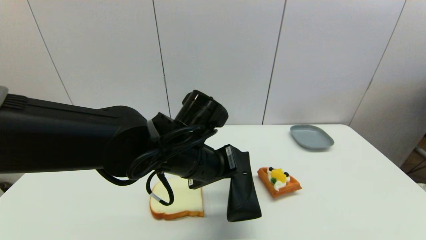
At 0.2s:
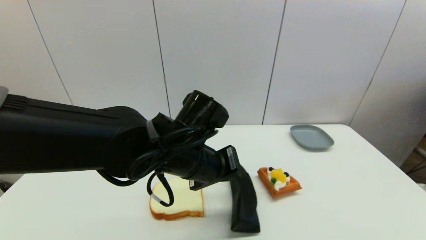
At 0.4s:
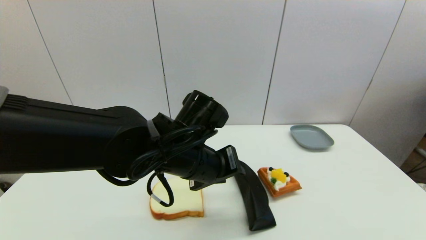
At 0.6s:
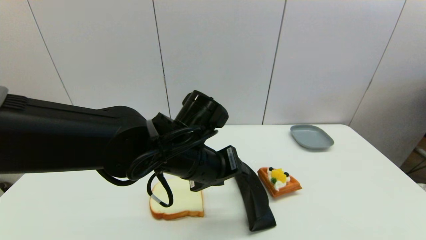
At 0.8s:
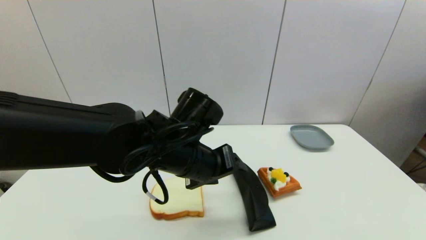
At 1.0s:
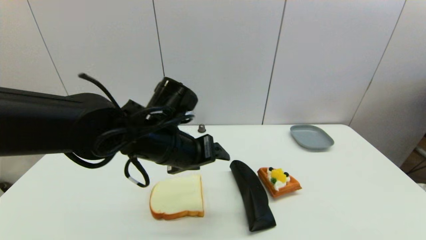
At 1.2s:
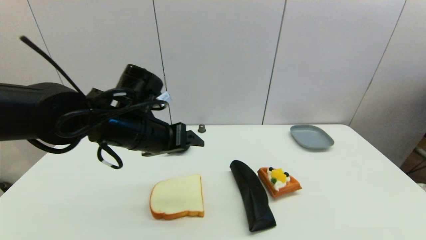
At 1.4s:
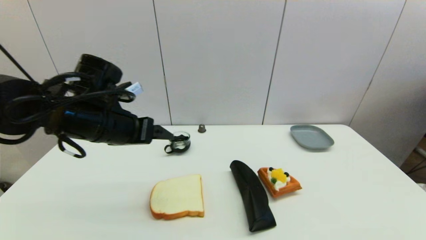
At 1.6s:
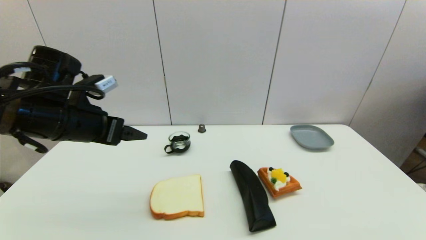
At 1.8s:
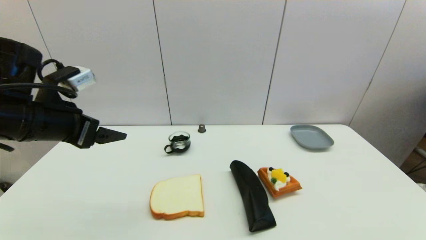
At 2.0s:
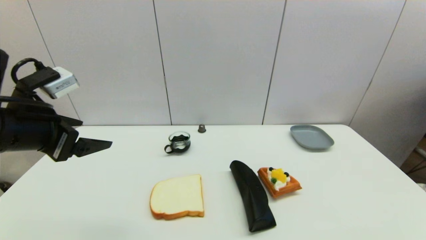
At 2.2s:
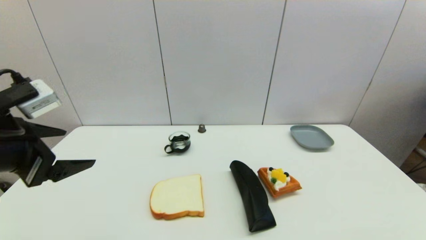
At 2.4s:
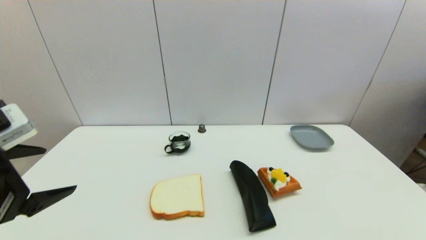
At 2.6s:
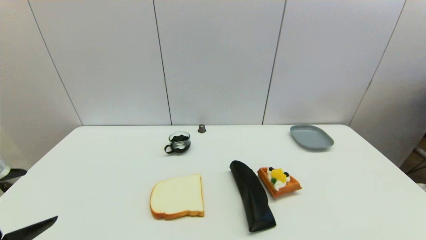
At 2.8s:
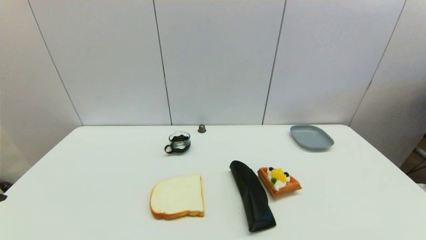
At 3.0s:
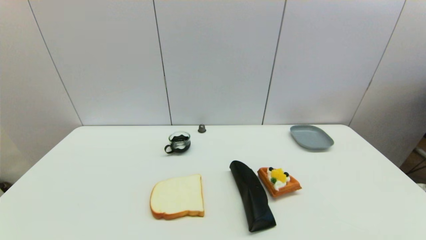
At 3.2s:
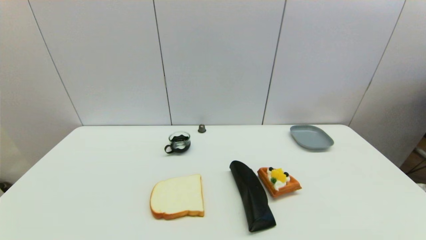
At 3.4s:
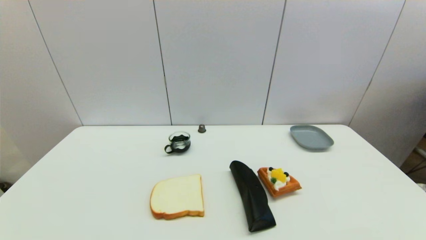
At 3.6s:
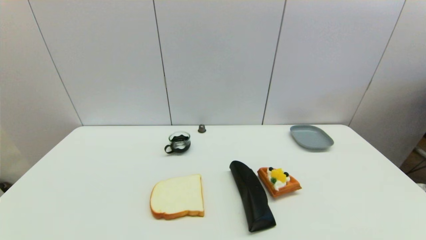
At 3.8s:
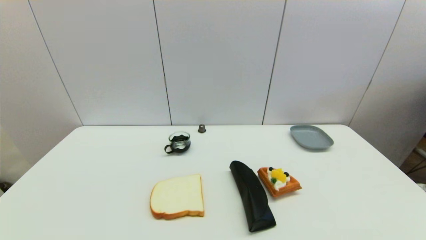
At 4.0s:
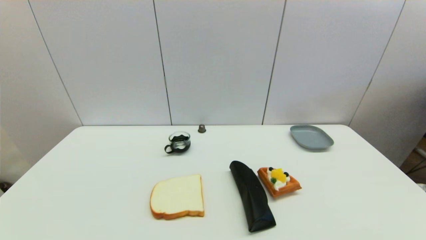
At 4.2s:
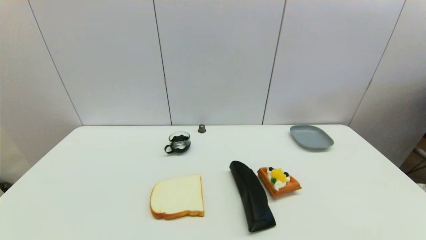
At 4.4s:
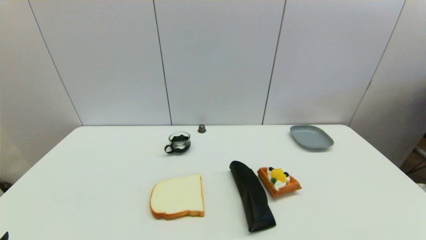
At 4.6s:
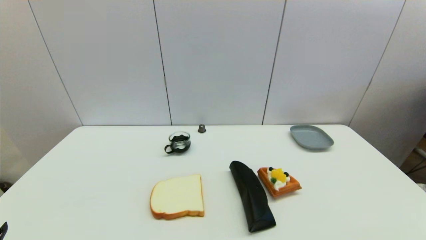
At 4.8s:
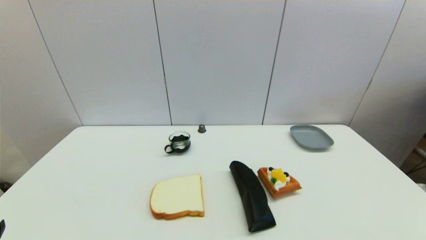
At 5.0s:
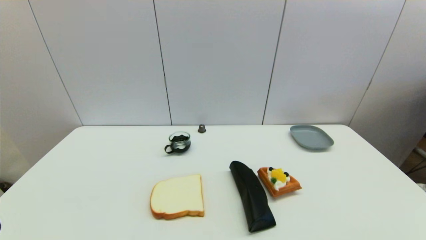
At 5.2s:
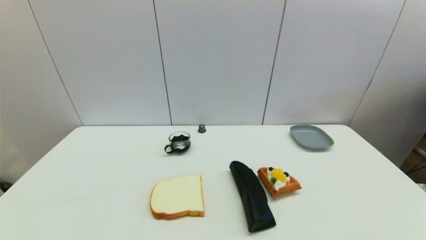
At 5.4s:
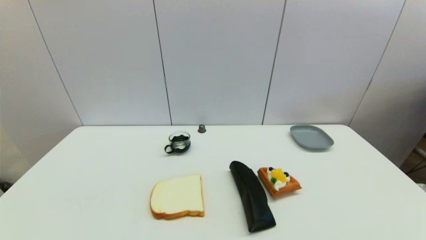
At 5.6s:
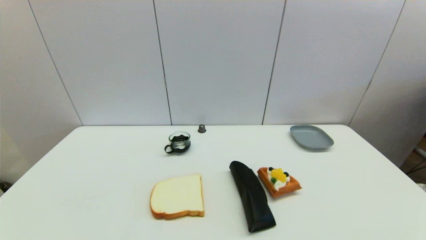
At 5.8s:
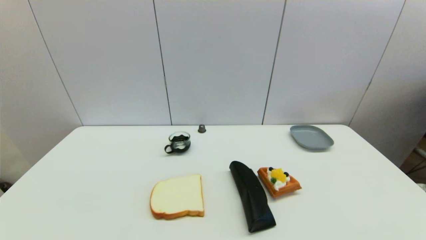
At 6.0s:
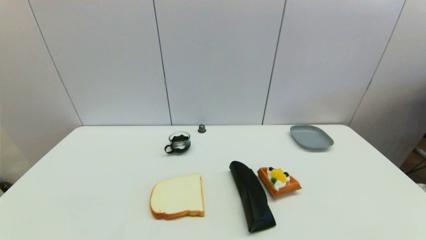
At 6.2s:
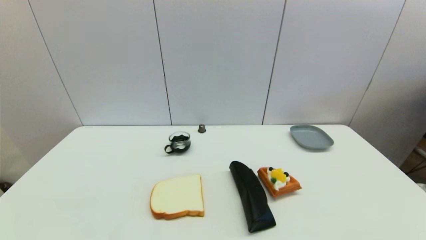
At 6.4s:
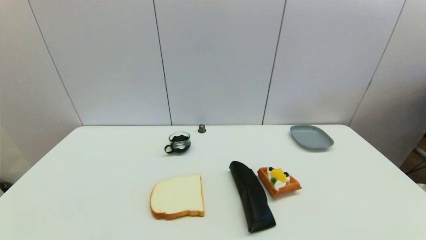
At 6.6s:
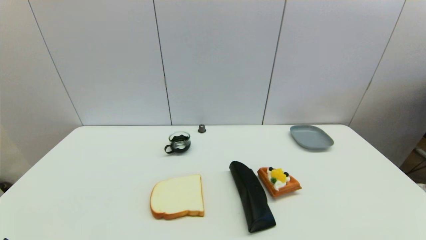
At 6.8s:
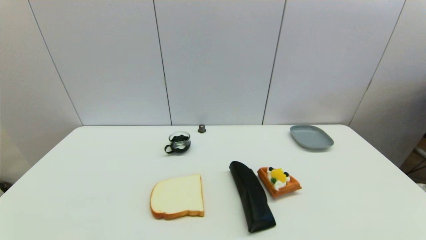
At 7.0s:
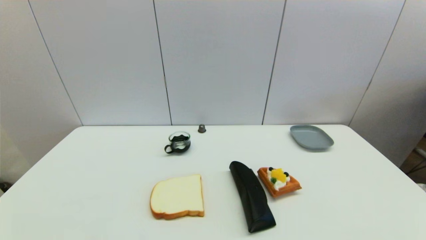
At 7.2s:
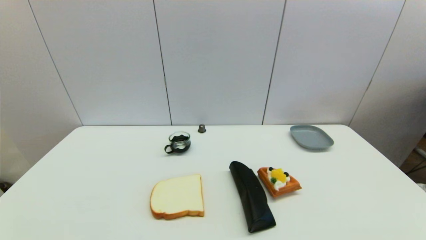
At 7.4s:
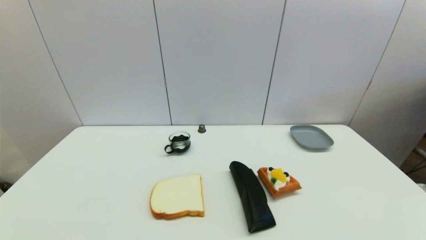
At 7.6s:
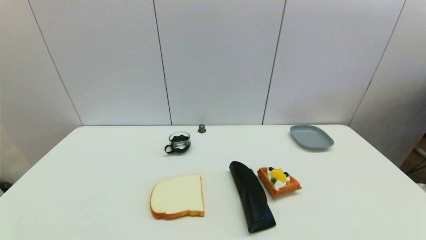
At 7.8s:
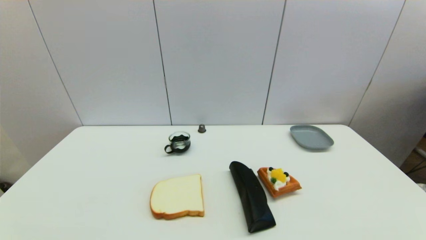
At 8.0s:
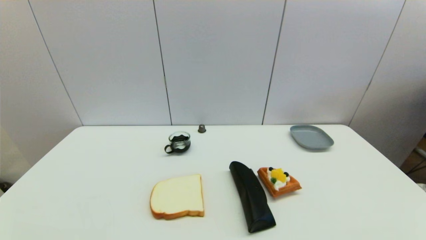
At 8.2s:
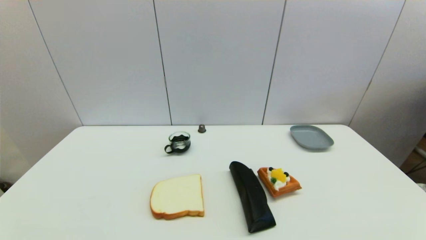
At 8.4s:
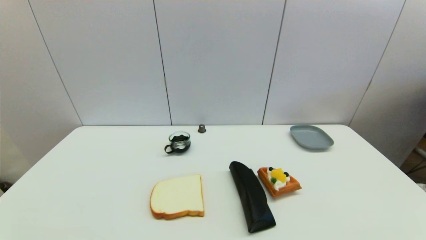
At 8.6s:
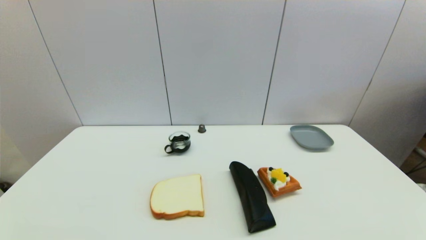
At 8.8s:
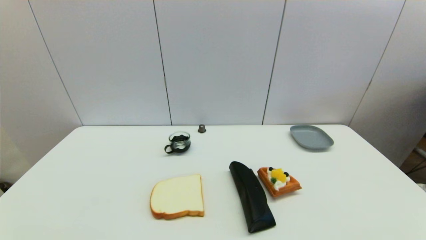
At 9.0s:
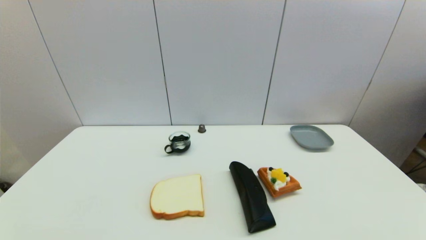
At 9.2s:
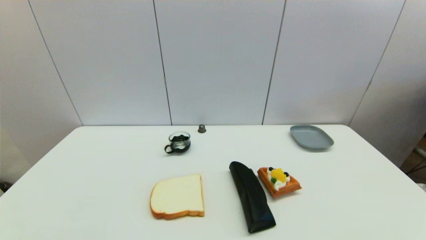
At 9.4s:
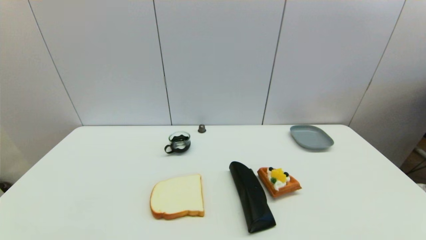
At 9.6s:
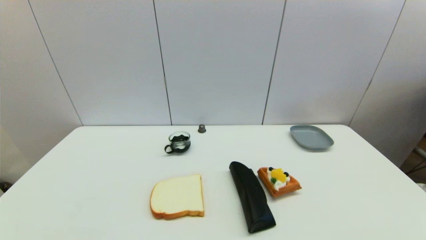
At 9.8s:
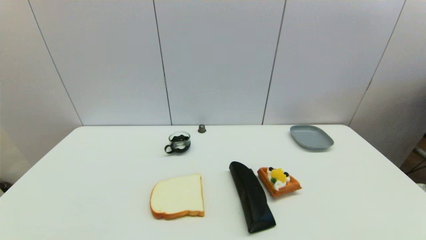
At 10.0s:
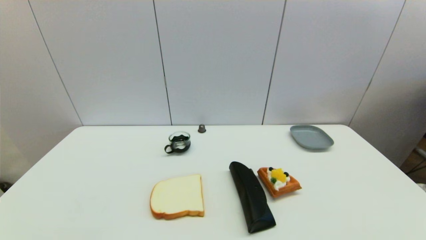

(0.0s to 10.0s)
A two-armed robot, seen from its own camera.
0.0s - 1.4s: The left gripper moves to the left, approximately 15 cm, and opens its fingers.
1.4s - 2.8s: The left gripper heads backward and to the left, covering roughly 25 cm.
7.2s - 10.0s: The two grippers keep their place.
